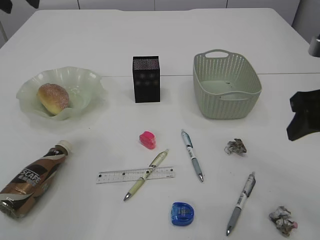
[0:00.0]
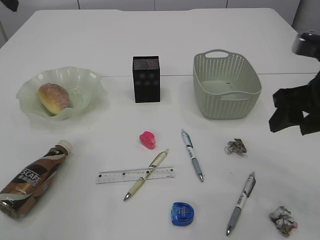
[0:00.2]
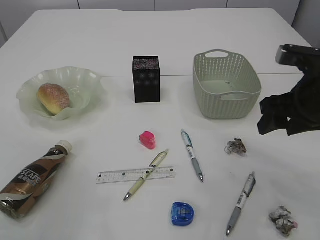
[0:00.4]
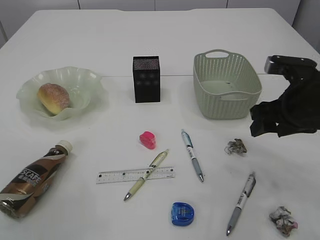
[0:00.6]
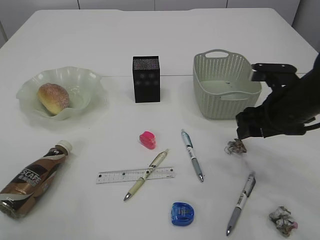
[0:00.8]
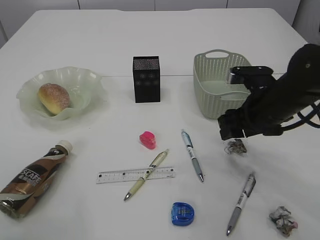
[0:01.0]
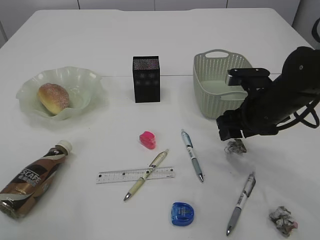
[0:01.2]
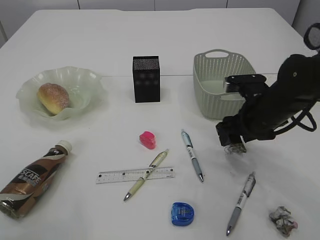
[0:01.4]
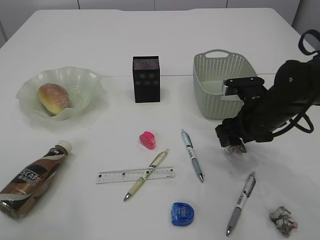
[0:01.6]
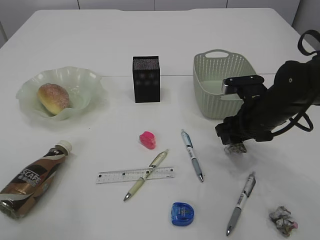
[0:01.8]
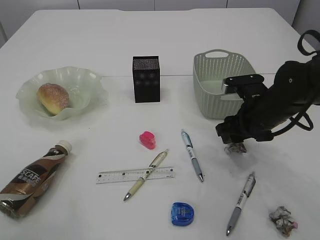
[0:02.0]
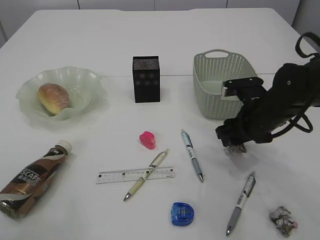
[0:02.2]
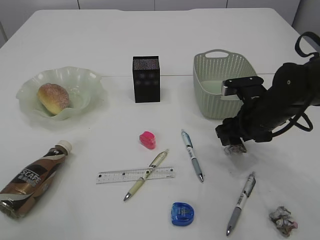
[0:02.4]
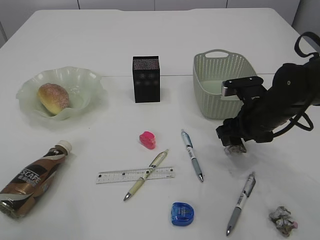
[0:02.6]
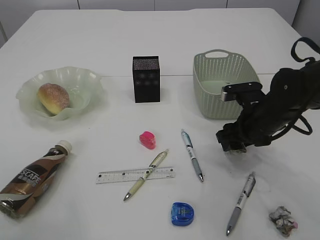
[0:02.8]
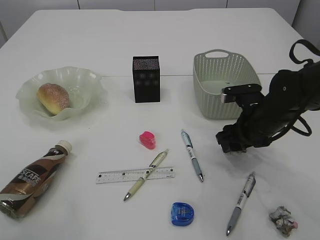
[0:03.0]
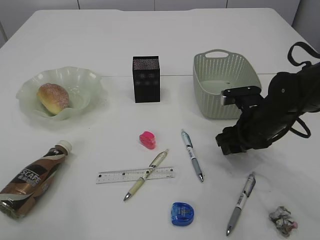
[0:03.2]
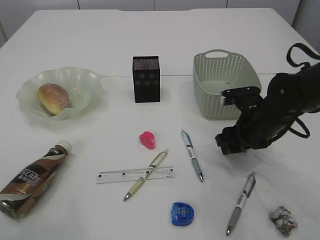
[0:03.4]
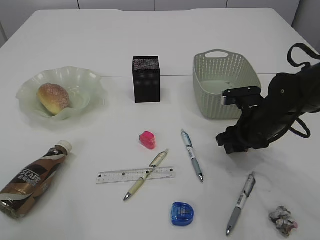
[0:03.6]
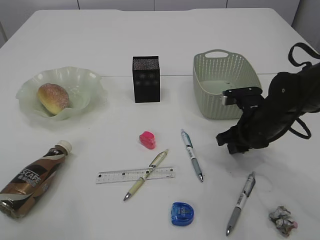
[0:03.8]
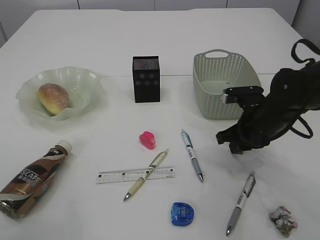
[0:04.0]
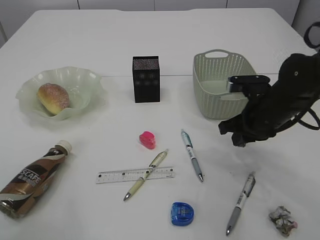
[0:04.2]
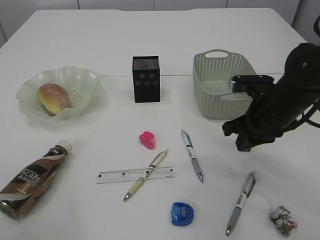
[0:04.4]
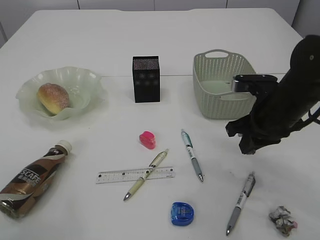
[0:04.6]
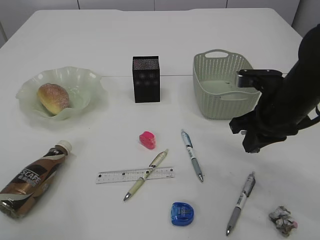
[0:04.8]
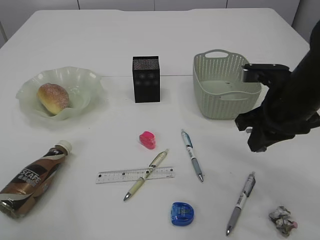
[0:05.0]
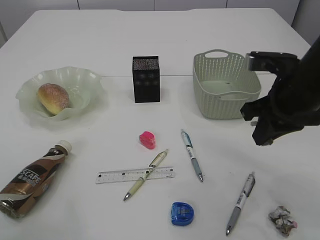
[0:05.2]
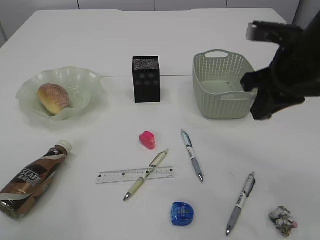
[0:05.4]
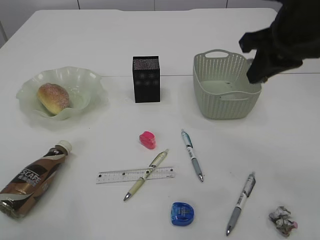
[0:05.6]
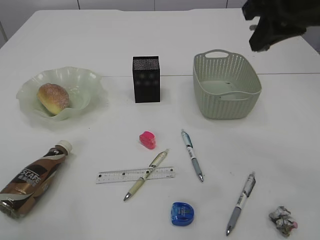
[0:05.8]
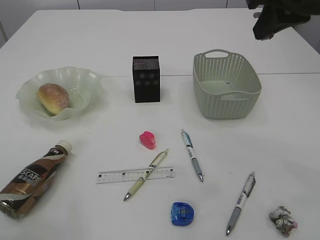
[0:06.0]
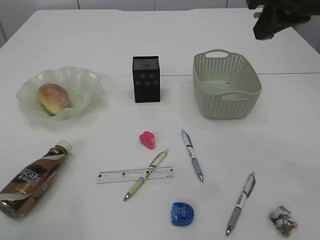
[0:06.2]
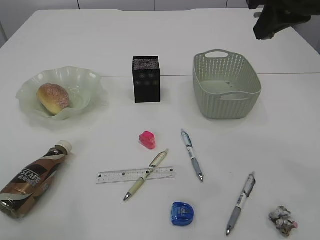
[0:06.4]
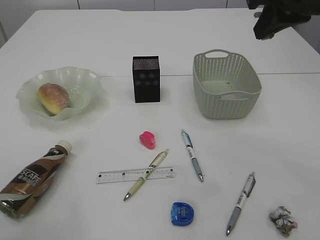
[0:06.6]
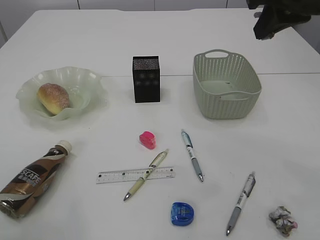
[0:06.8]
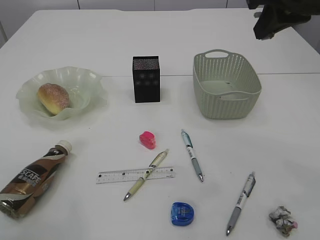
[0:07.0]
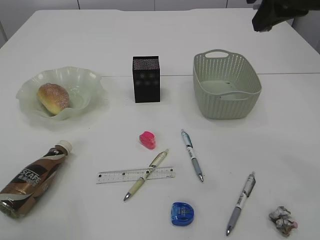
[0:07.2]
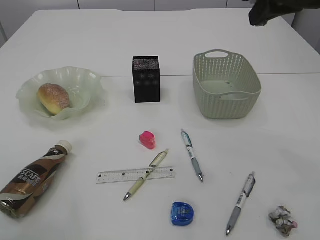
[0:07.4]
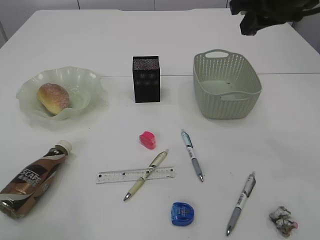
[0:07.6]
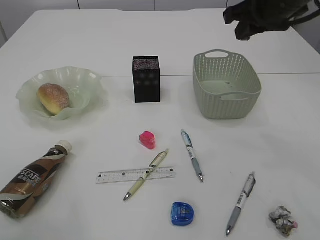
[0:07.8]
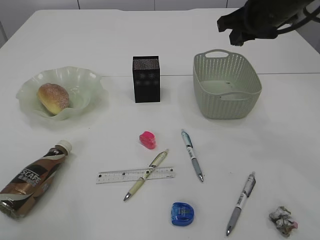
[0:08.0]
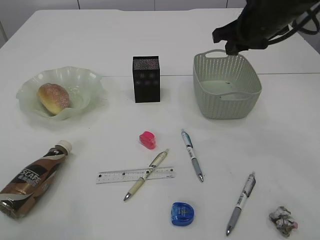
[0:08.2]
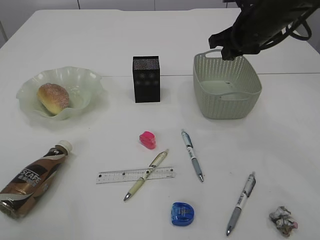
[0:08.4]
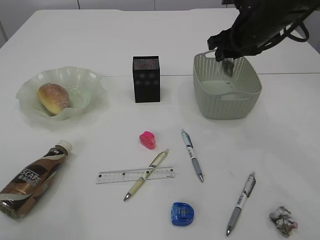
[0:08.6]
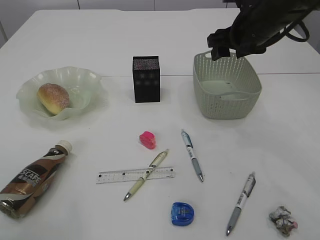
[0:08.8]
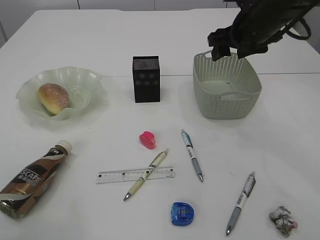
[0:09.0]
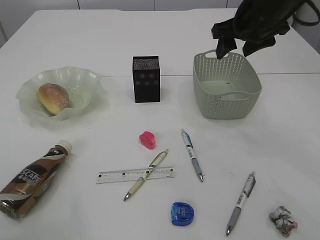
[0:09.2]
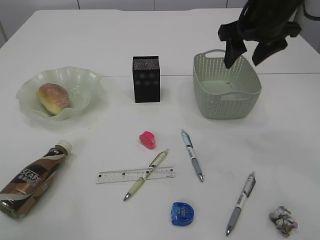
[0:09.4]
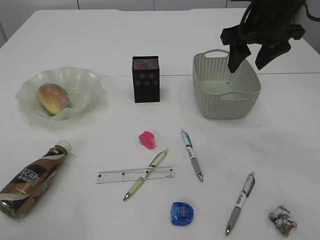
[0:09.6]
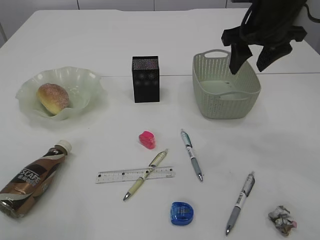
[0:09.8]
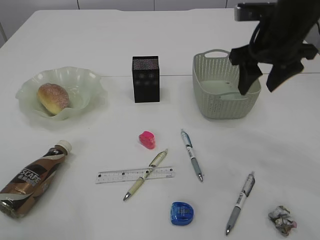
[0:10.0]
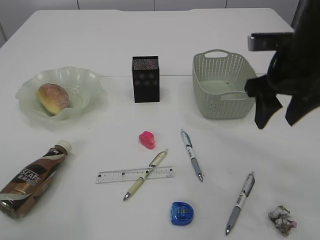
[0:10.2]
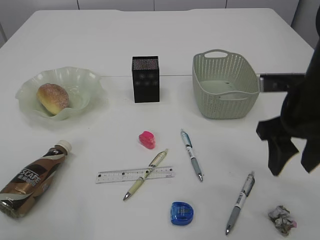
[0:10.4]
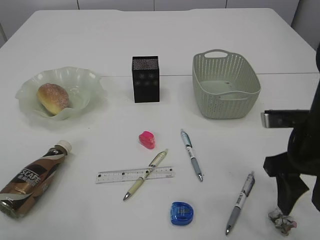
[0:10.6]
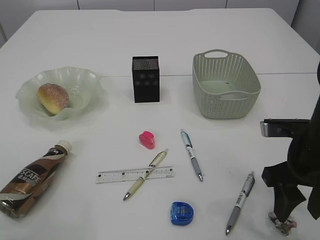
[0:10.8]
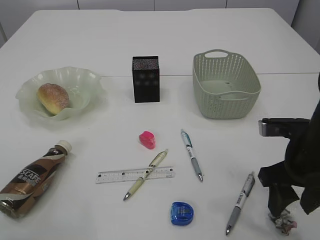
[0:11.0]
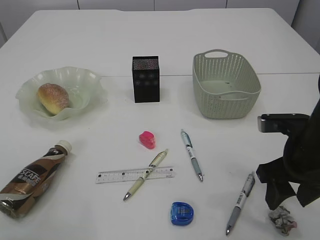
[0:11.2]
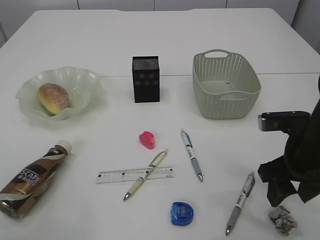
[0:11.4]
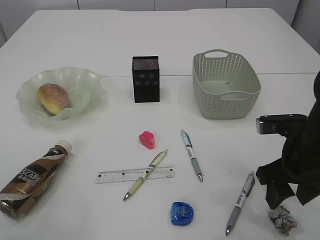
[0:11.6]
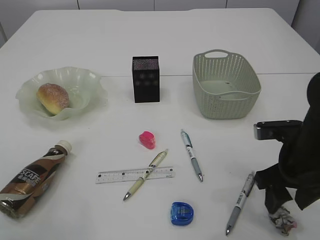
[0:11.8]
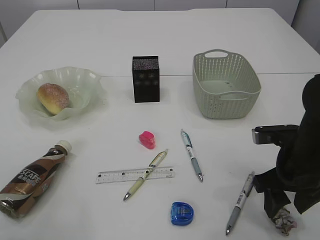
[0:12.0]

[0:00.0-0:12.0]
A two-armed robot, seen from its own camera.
Step, 0:00.0 to 0:04.4: Pick up the waste paper.
Step, 0:04.6 to 0:09.0: Place the waste paper in the basket.
0:00.0 to 0:01.6: The right gripper travels downward and forward by approximately 20 cm.
0:01.6 to 0:03.0: The grippers move only a little.
0:03.0 to 0:04.4: The right gripper closes its fingers.
0:04.4 to 0:06.0: The right gripper travels upward by some 20 cm.
0:06.0 to 0:07.6: The grippers stay close to where they were, moving slightly.
0:07.6 to 0:09.0: The right gripper moves downward and forward, about 10 cm, and opens its fingers.
0:09.0 to 0:10.4: The right gripper is displaced backward by about 15 cm.
0:10.4 to 0:12.0: The right gripper travels downward by about 10 cm.

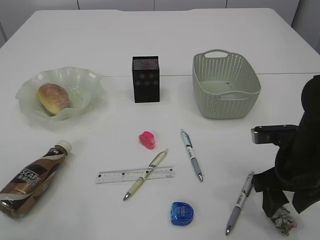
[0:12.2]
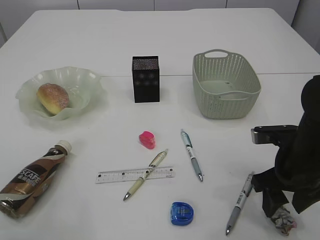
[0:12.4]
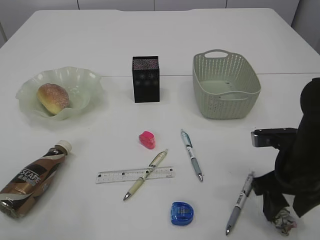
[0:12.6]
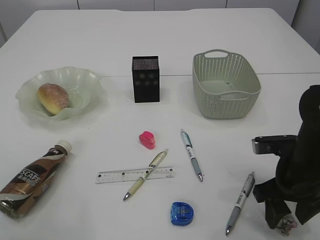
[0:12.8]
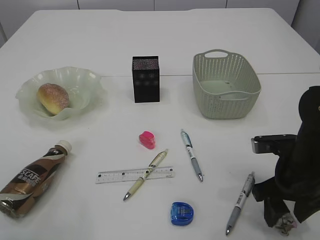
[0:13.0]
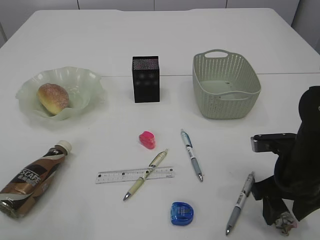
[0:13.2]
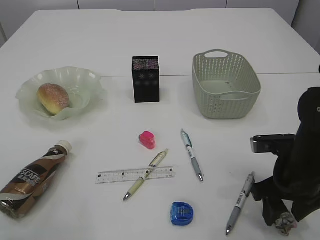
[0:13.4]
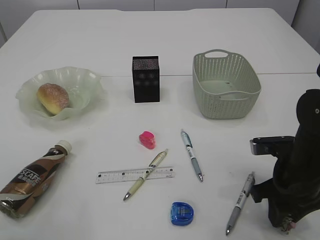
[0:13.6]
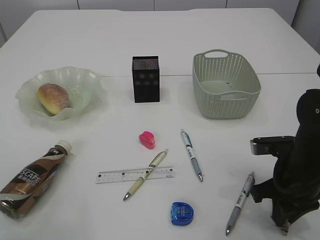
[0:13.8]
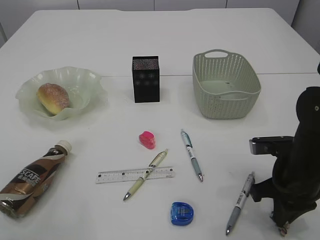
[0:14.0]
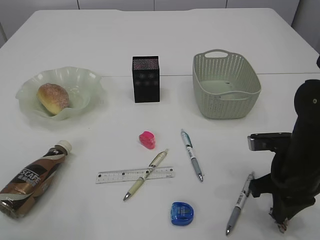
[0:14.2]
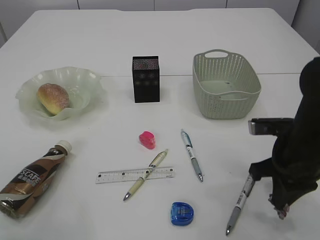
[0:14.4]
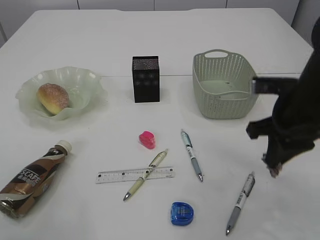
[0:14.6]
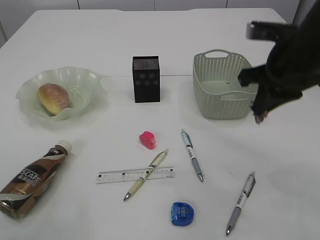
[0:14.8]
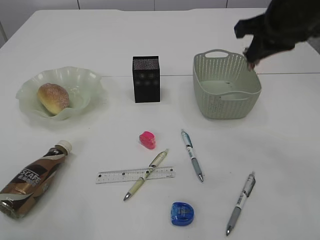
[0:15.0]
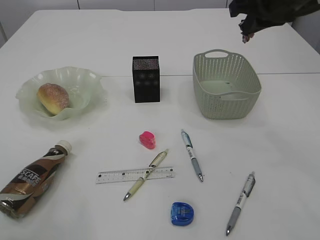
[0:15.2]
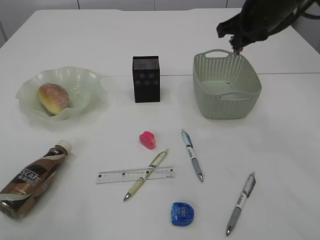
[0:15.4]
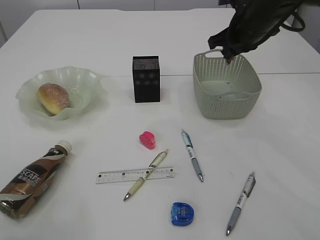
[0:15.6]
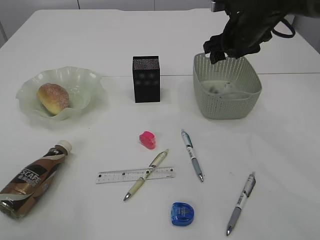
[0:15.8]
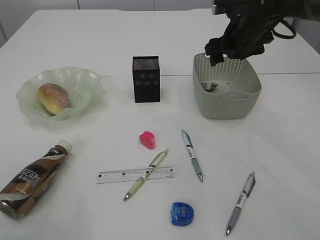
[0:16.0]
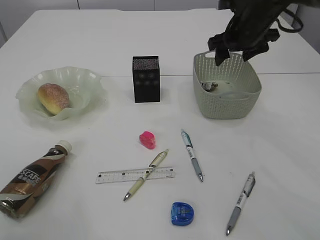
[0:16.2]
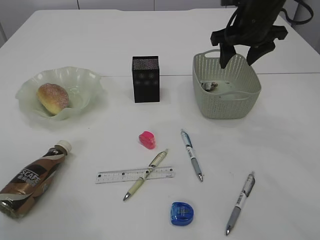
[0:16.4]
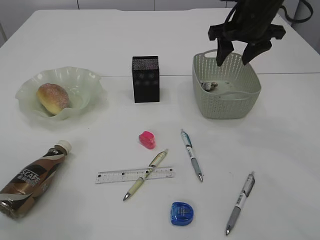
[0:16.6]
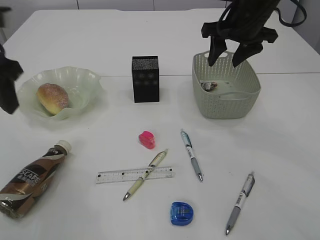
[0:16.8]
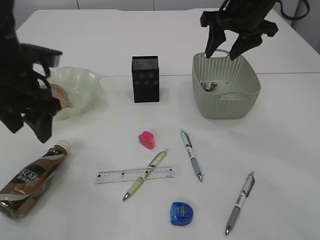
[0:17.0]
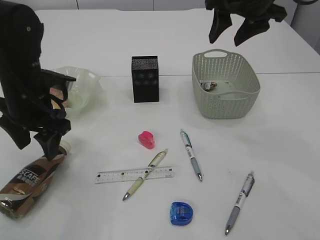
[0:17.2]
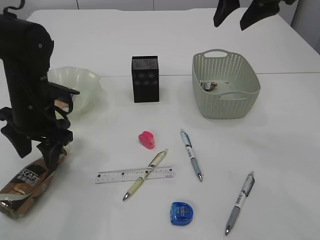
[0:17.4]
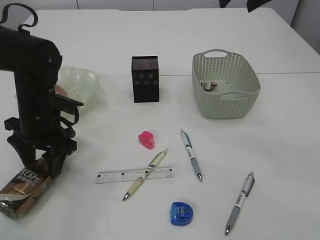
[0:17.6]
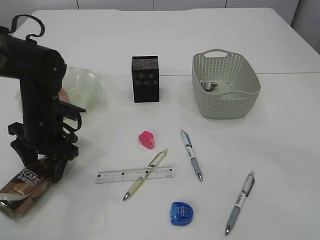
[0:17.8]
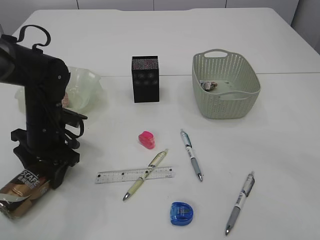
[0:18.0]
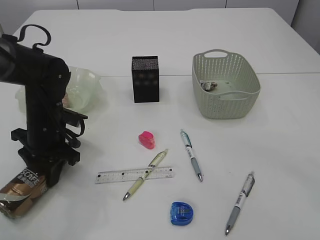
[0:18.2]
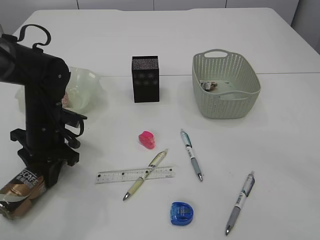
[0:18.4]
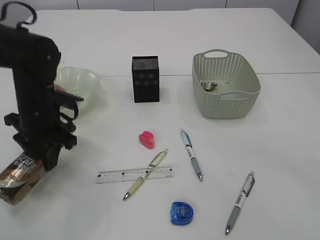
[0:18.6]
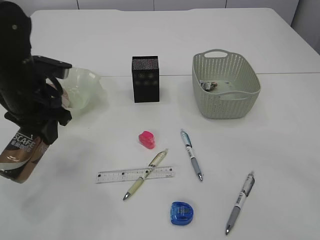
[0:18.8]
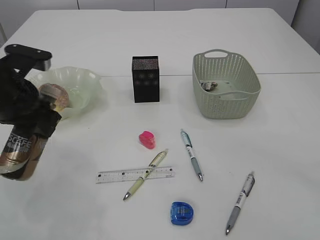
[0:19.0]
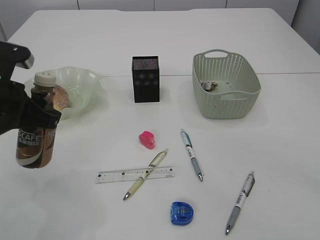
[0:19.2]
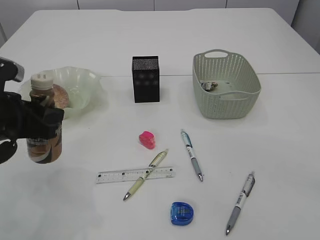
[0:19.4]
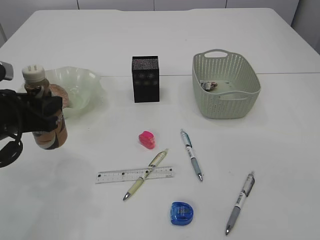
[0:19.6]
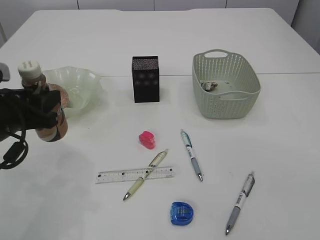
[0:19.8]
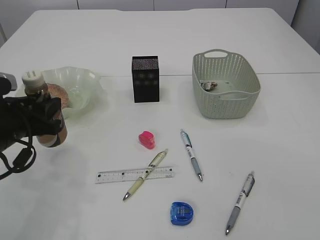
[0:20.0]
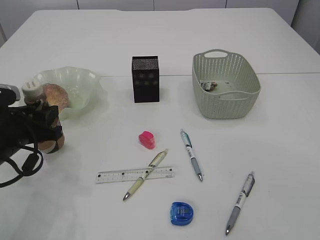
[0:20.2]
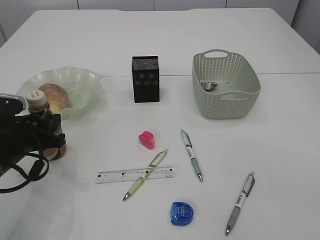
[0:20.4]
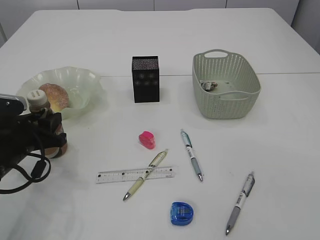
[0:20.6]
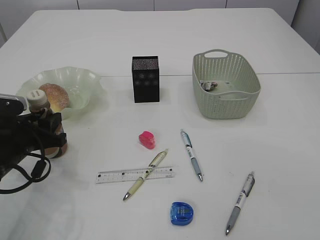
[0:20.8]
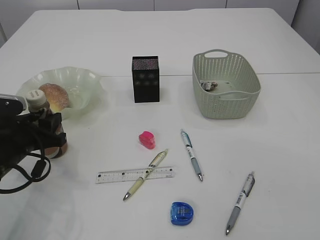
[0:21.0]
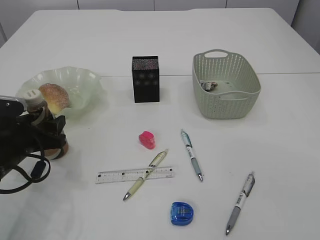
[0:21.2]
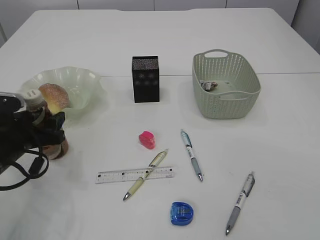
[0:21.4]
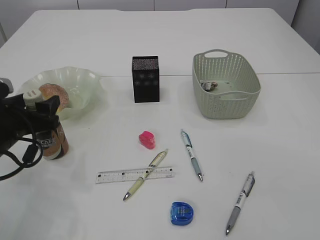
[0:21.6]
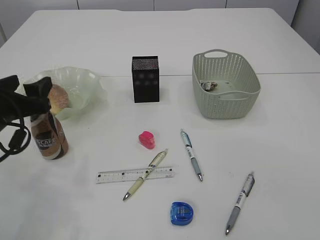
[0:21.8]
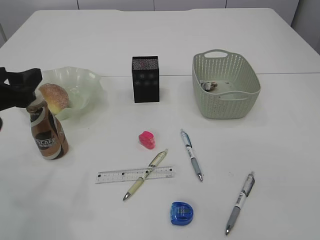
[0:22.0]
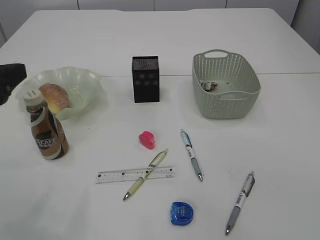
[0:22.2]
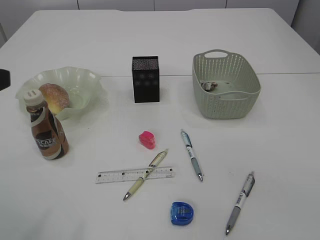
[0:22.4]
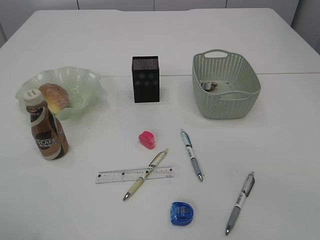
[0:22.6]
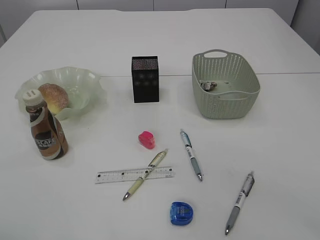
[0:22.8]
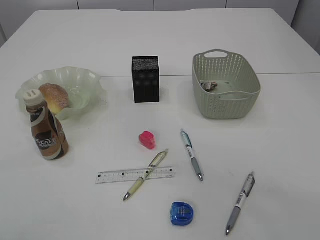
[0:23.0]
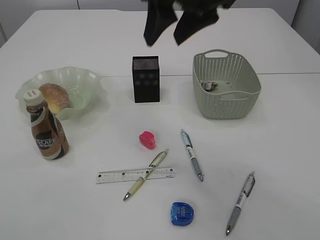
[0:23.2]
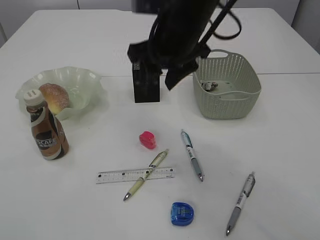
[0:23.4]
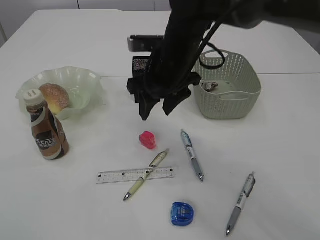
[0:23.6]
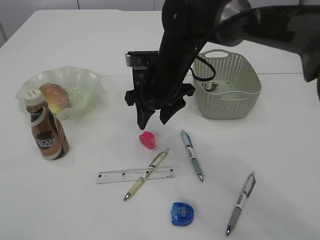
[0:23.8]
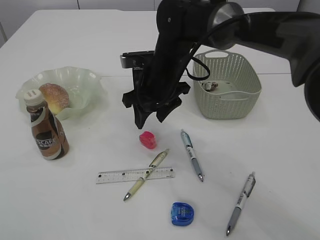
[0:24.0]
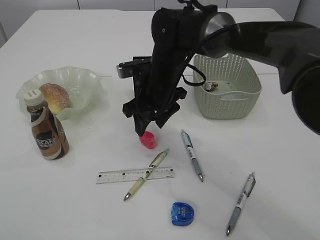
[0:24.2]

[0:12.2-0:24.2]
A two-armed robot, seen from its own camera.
Step, 0:12.2 to 0:14.4: Pick up the waste paper.
Step, 0:14.6 to 0:16.2: Place the waste paper in the basket.
Step, 0:16.4 to 0:18.6: Pick up the bottle with the left arm.
Step, 0:18.8 to 0:22.0: Place the bottle.
0:12.2 to 0:13.8: The right gripper closes its fingers.
0:13.8 to 0:15.2: The right gripper goes some 25 cm upward and forward.
0:15.2 to 0:16.6: The right gripper moves forward and downward, some 10 cm, and opens up.
0:16.6 to 0:18.2: The left gripper moves downward, about 25 cm; the right gripper heads upward and backward, covering approximately 20 cm.
0:18.2 to 0:19.8: The left gripper travels backward and upward by roughly 10 cm.
0:19.8 to 0:21.2: The left gripper goes roughly 10 cm downward, and opens up.
0:21.2 to 0:22.6: The left gripper shifts about 25 cm upward and backward.
0:22.6 to 0:24.2: The left gripper ends up approximately 5 cm from where it was, while the right gripper shifts about 40 cm downward, to the left and forward.
